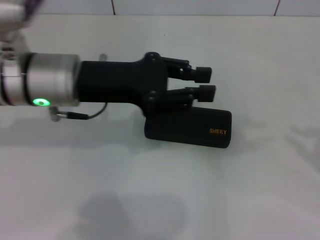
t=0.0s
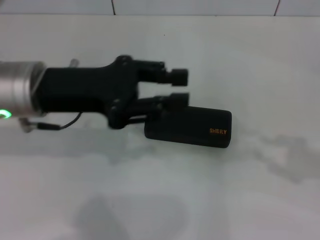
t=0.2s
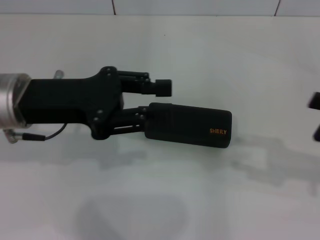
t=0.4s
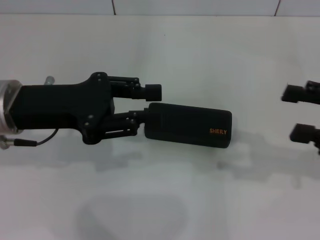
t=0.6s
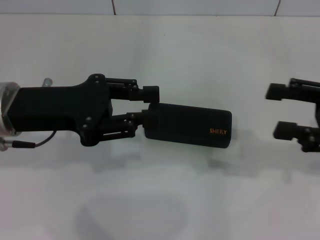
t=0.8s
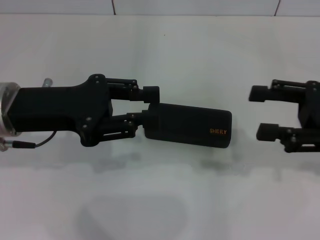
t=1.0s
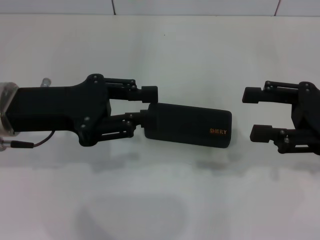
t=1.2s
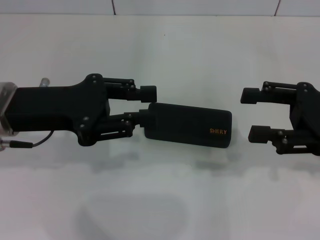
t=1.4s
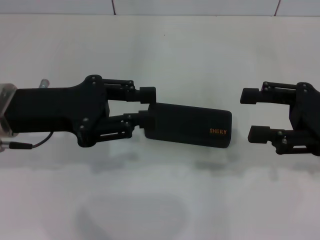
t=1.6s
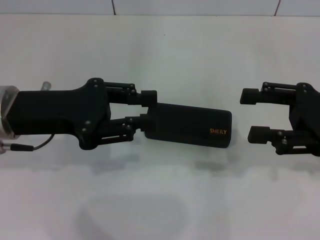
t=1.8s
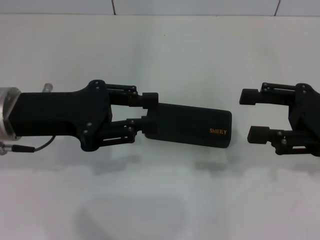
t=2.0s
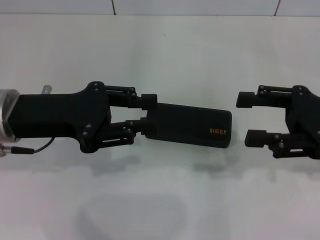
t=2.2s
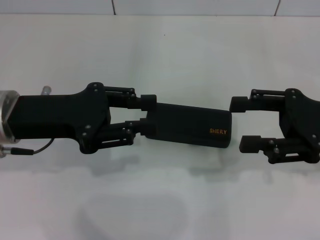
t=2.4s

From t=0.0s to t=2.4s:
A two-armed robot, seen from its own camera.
From t=0.0s to t=1.2s: The left gripper heads to the left, covering approximately 5 cm, and opens up; the right gripper moves to the left and forward, roughly 15 cm, and opens.
From t=1.2s to t=2.4s: The two grippers keep their place.
